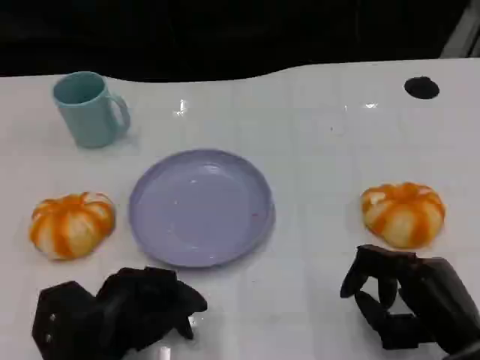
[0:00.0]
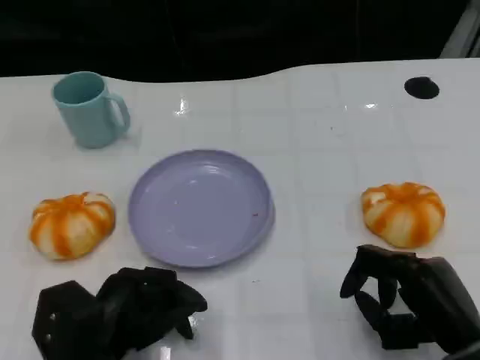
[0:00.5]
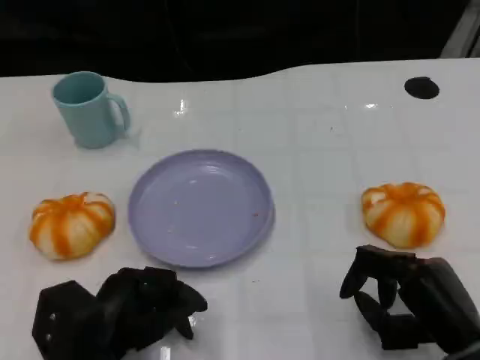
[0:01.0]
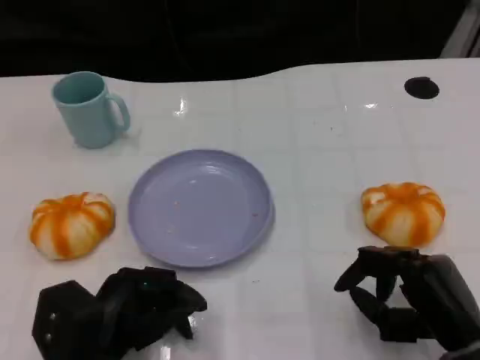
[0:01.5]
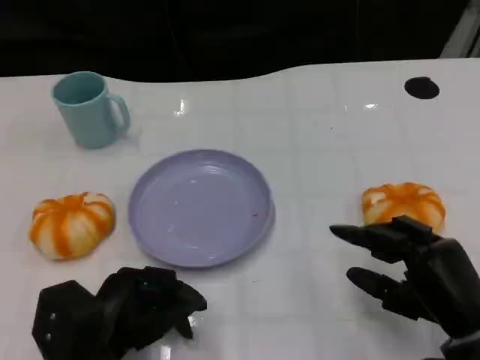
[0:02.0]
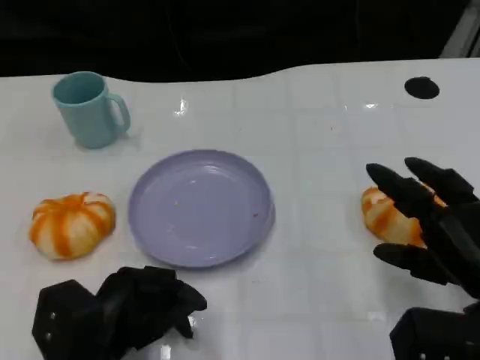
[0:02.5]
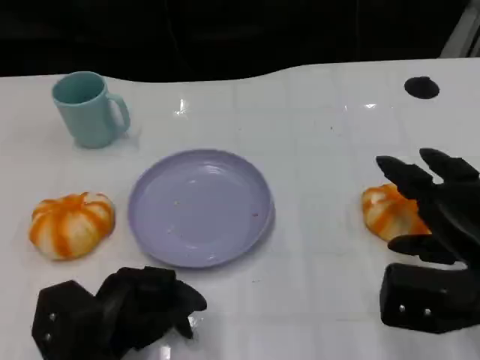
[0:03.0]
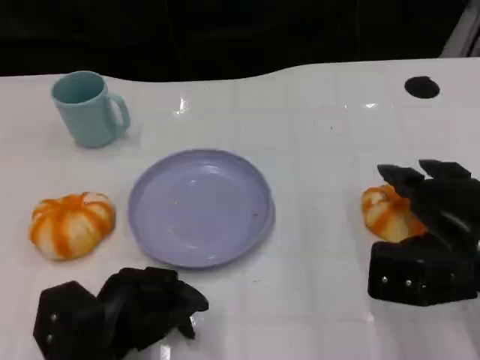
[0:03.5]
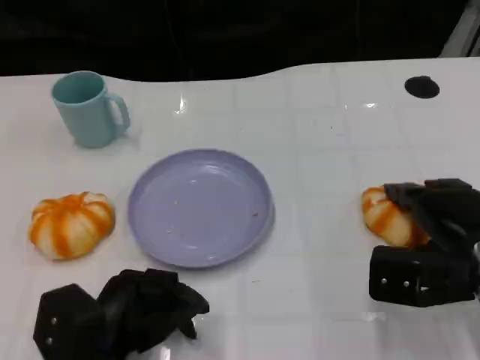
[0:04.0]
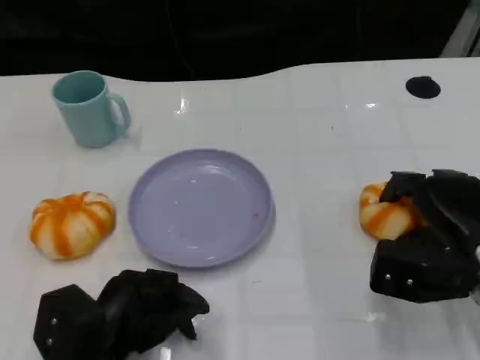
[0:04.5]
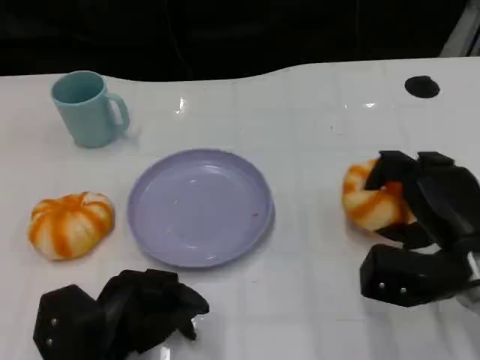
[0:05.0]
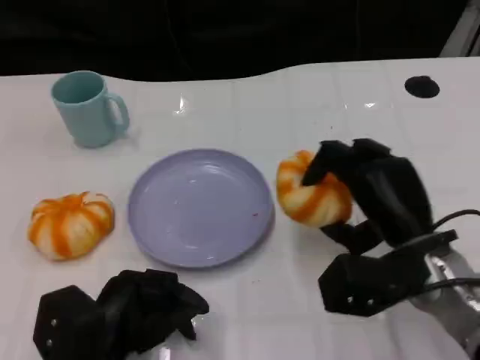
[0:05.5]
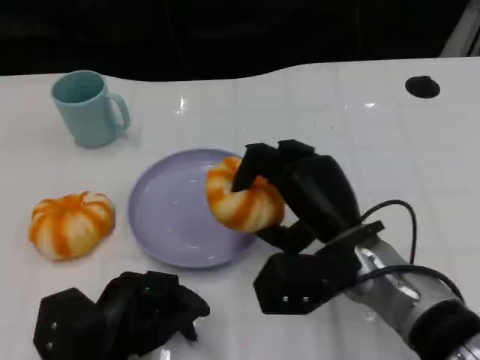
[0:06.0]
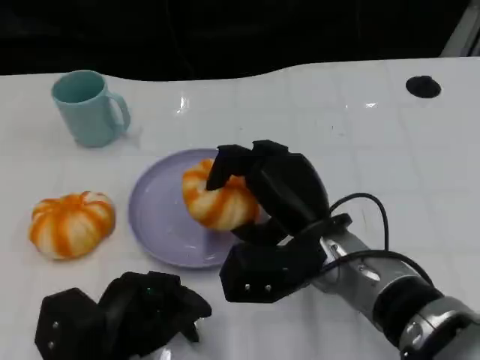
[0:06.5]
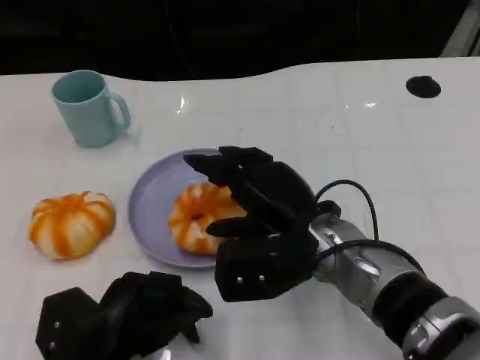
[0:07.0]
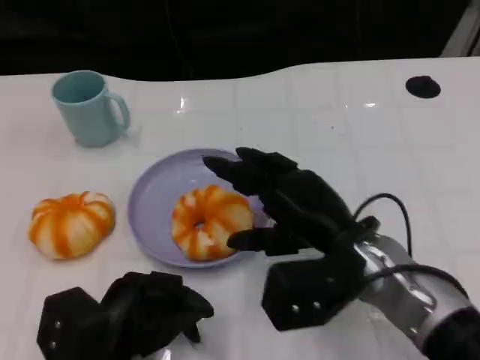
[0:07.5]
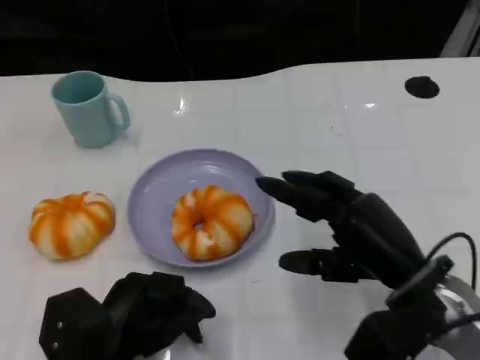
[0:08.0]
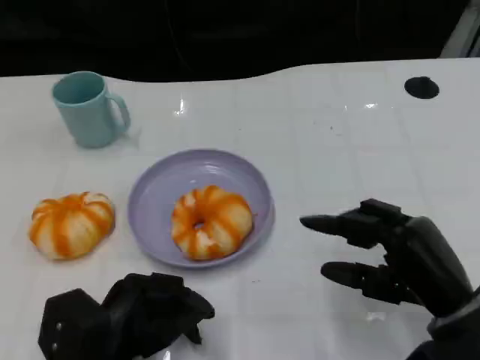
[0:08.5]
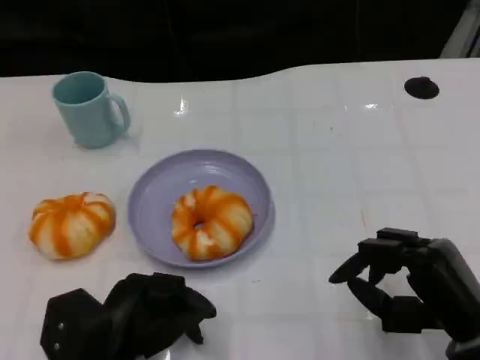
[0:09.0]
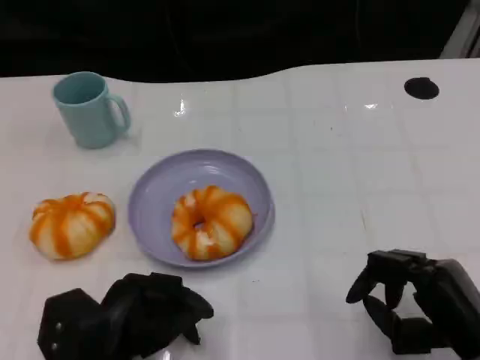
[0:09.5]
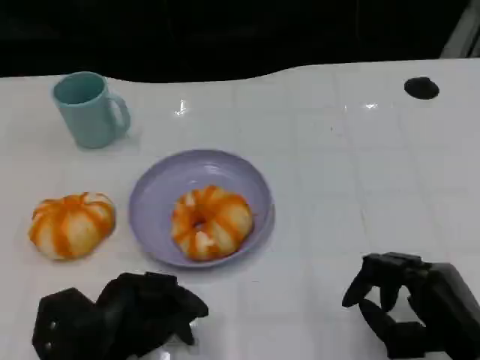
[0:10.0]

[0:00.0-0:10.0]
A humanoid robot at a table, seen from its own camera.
Task of the whole recording: Grasp the bread from the table and place it into the plate.
0:00.0 to 0:02.0: The hands move only a little.
0:02.0 to 0:04.0: The right hand goes about 5 cm forward.
0:04.0 to 0:06.0: The right hand moves to the left, about 15 cm.
0:06.0 to 0:08.0: The right hand heads to the right, covering about 5 cm.
0:08.0 to 0:10.0: The right hand moves backward, some 5 cm.

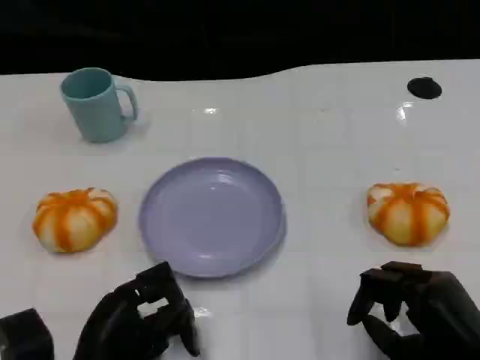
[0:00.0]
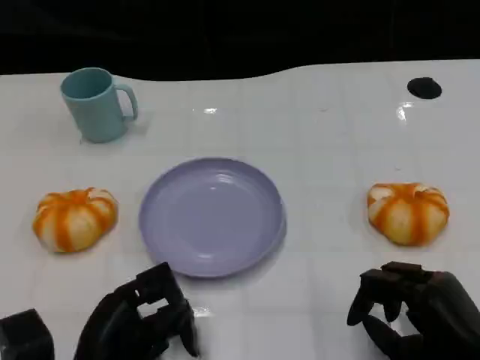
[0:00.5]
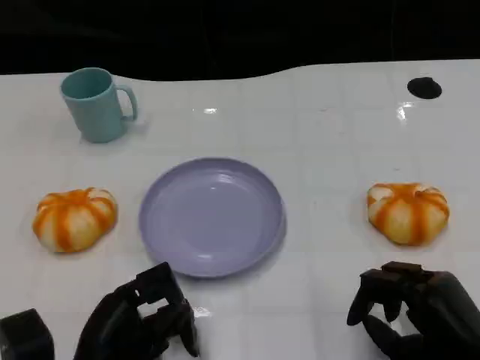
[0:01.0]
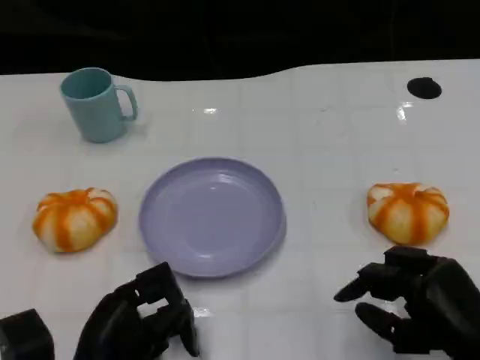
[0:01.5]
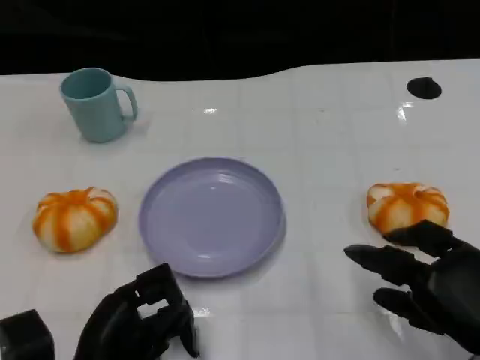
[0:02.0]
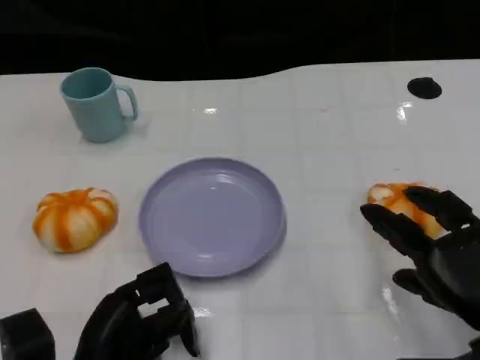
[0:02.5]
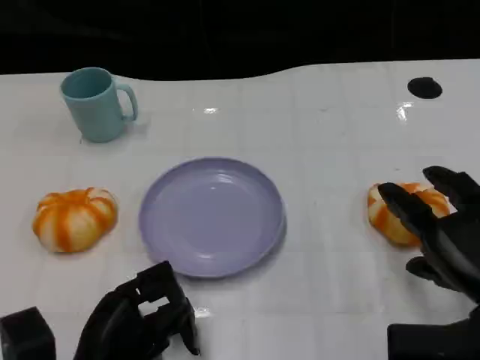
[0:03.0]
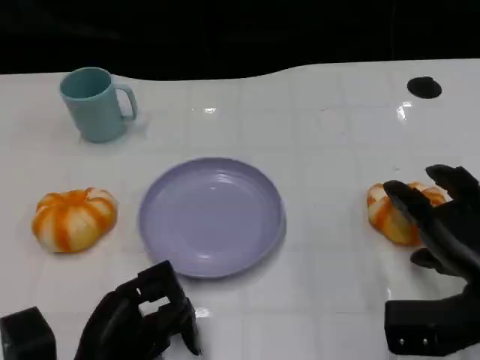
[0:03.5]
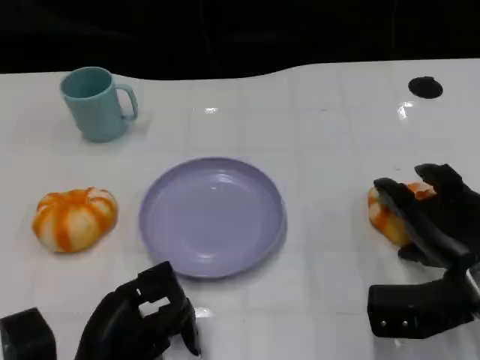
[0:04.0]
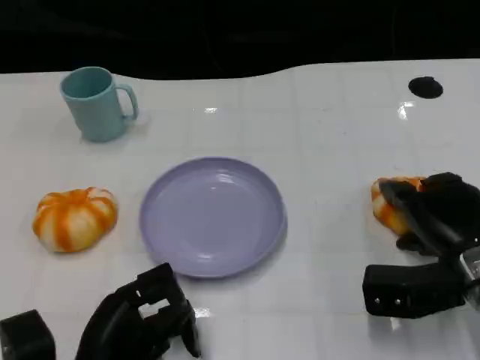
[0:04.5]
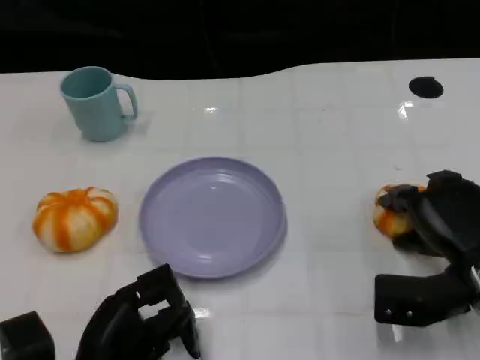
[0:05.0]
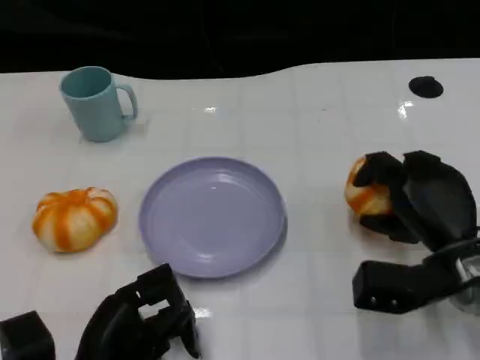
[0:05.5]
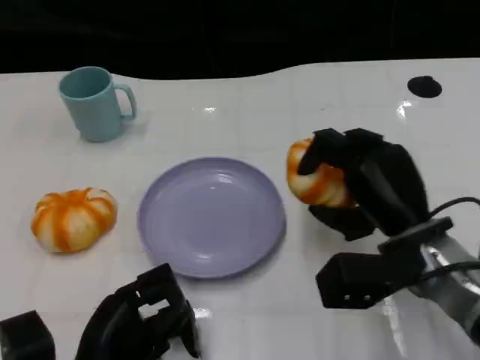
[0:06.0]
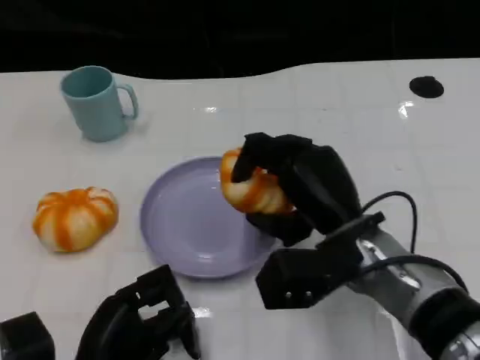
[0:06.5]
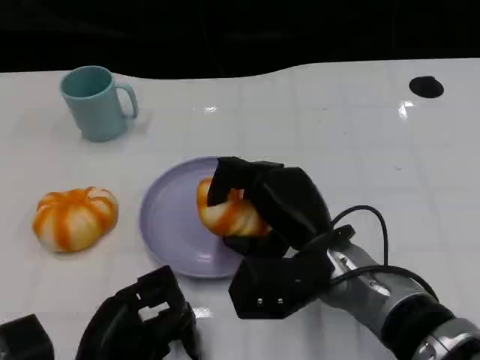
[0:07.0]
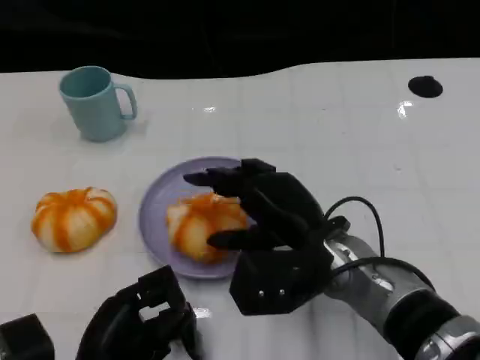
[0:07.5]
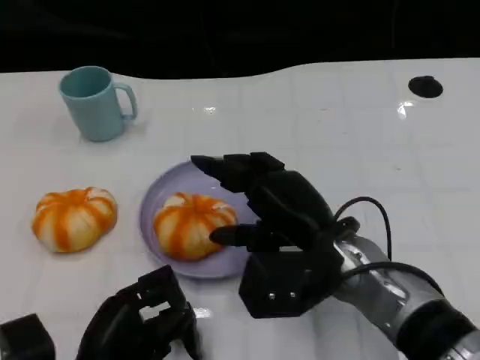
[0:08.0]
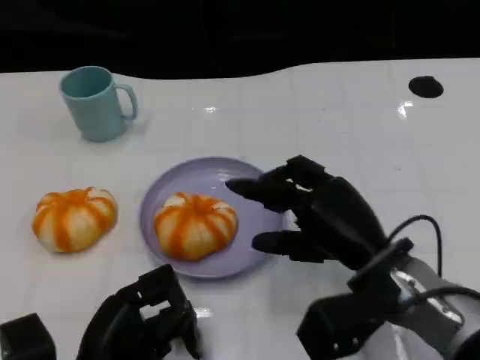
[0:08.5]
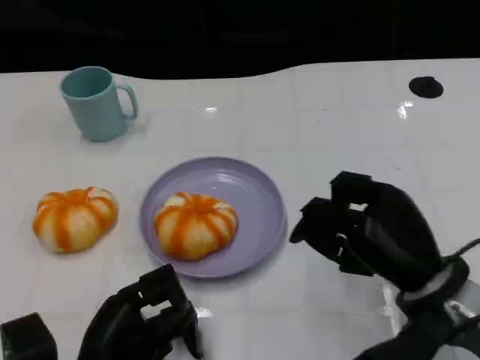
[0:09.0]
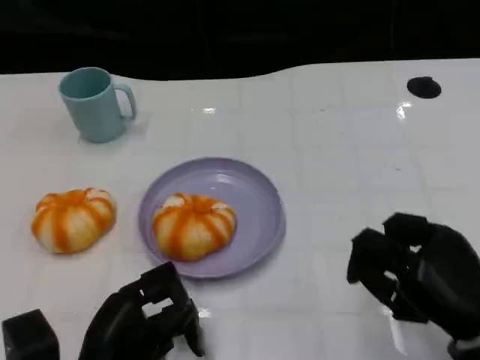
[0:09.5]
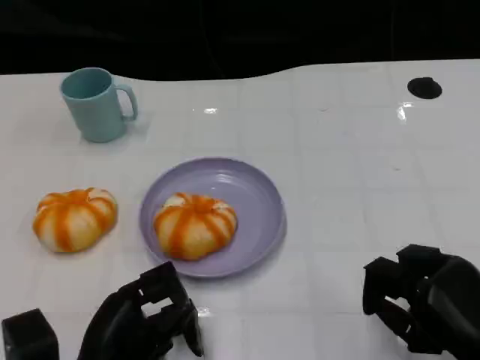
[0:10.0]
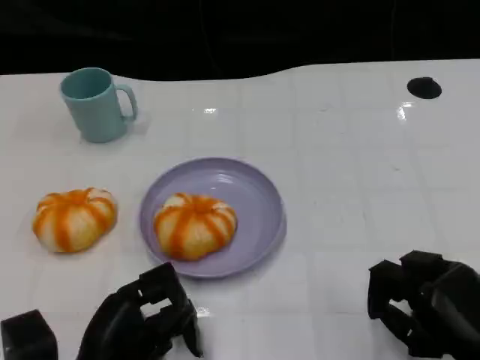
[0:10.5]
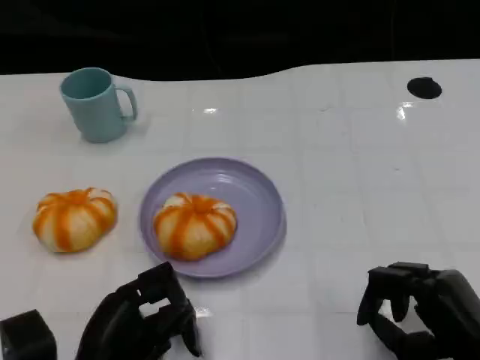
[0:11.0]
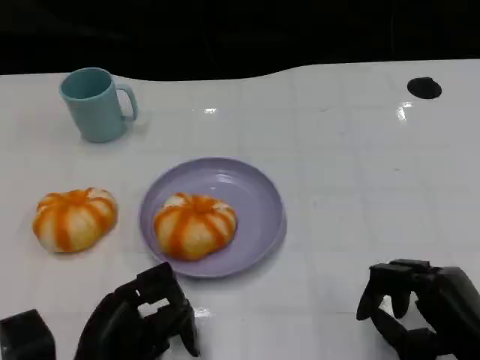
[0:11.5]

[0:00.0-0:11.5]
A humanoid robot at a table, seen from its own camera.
Task of the whole recording: Grasp the bread from the table and place it into the plate.
0:02.0 to 0:04.0: The right hand is displaced forward by about 10 cm.
0:04.0 to 0:06.0: The right hand travels to the left by approximately 5 cm.
0:06.0 to 0:07.5: The right hand shifts approximately 10 cm to the left.
0:07.5 to 0:09.5: The right hand moves to the right and backward, roughly 15 cm.

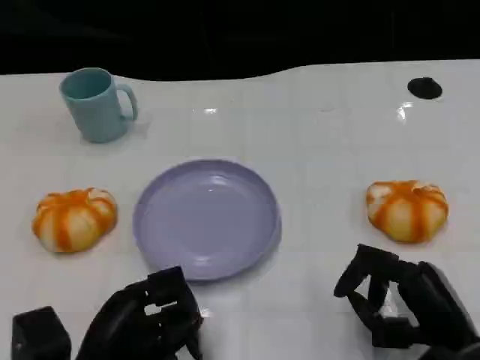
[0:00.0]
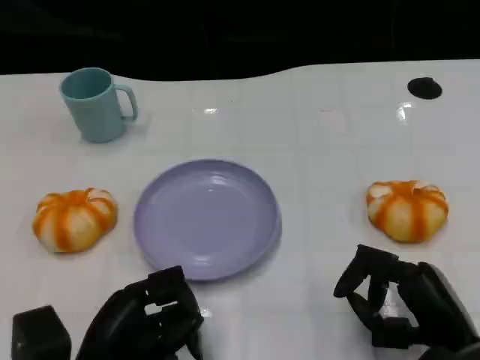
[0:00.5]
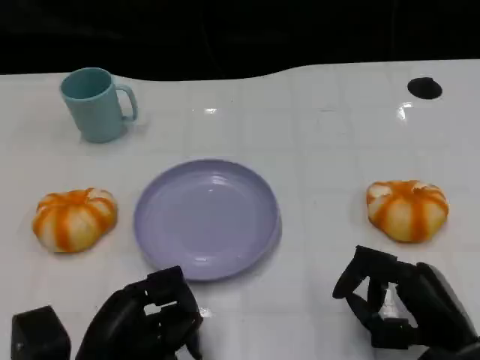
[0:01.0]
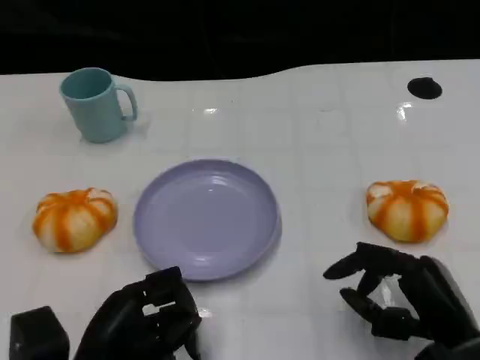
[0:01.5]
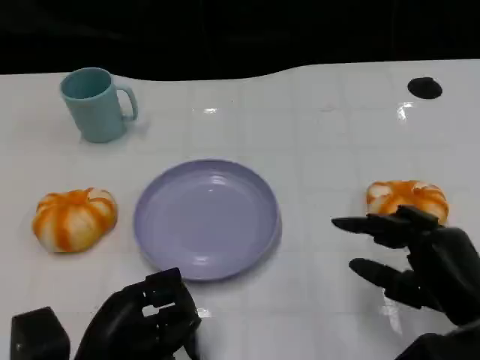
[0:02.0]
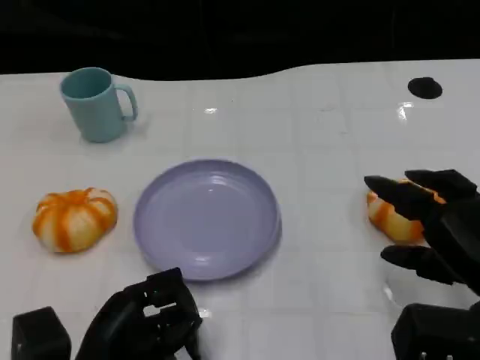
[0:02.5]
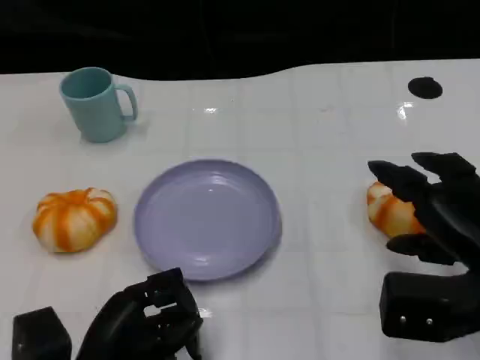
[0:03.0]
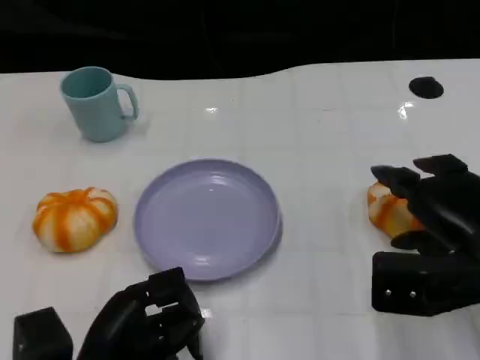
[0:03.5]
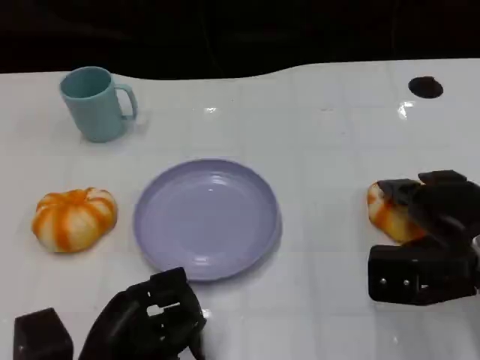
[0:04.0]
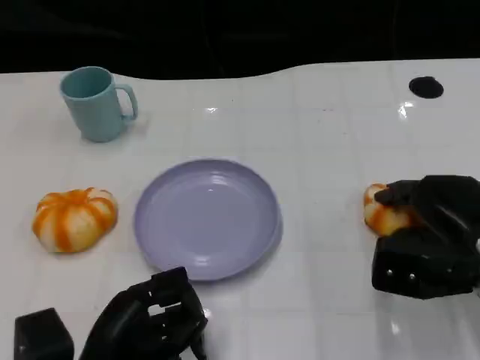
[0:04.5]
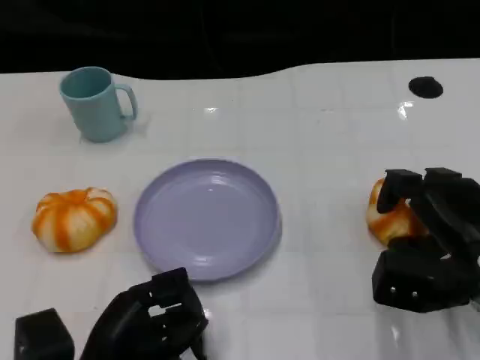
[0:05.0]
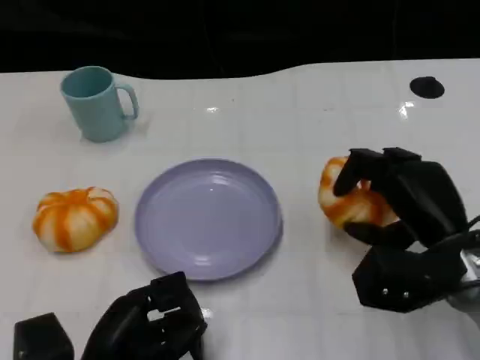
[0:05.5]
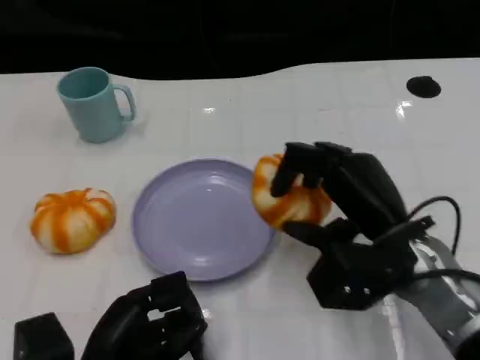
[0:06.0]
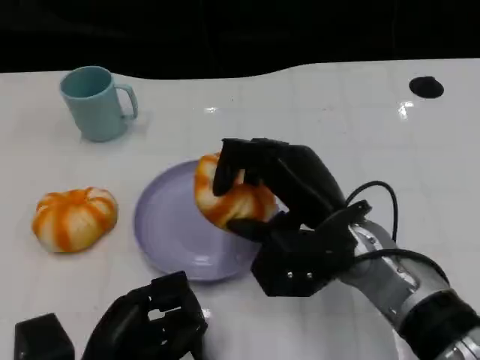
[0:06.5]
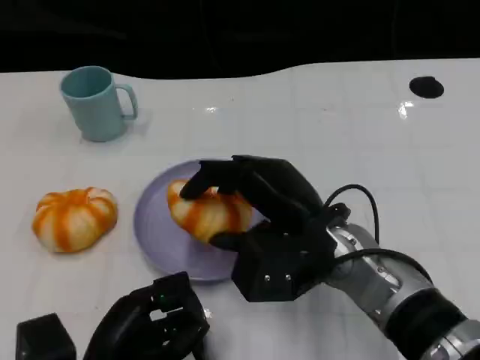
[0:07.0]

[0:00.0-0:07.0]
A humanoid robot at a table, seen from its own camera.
Task of the whole recording: Grasp the bread from the table and place it into the plate.
0:00.0 to 0:02.0: The hands make only small movements.
0:02.0 to 0:03.5: The right hand moves forward, about 5 cm.
0:03.5 to 0:05.0: The hands stay close to where they were, moving slightly.
0:05.0 to 0:07.0: The right hand goes some 15 cm to the left.
